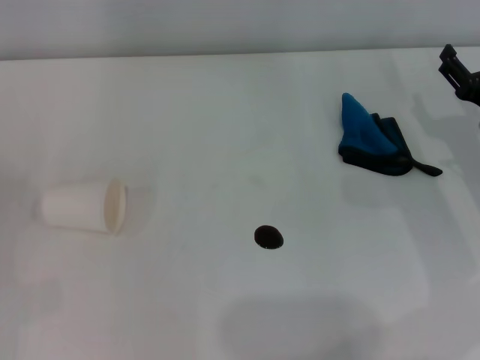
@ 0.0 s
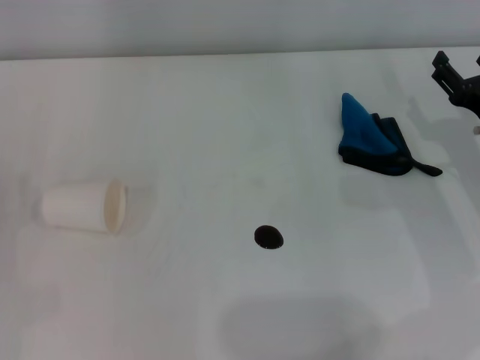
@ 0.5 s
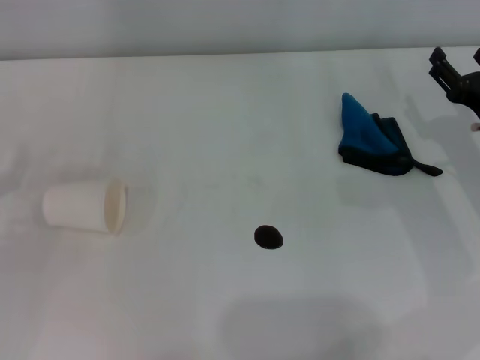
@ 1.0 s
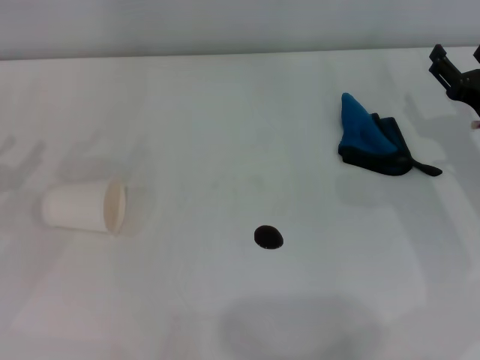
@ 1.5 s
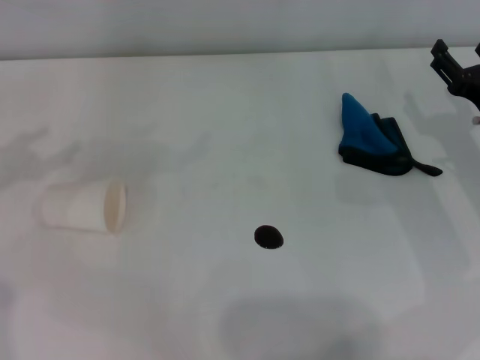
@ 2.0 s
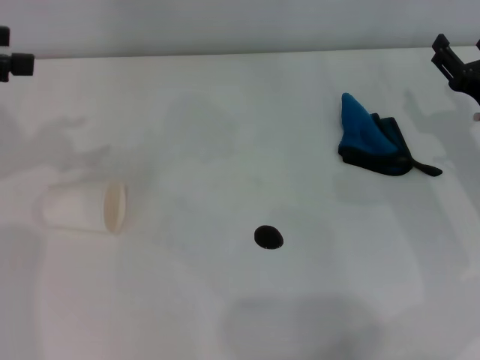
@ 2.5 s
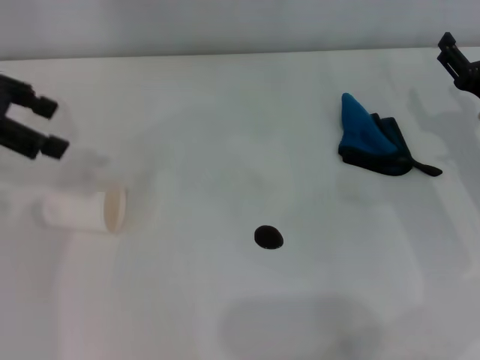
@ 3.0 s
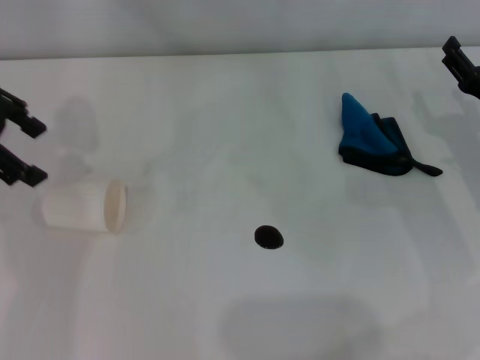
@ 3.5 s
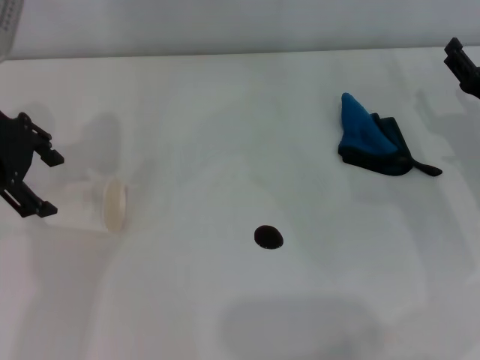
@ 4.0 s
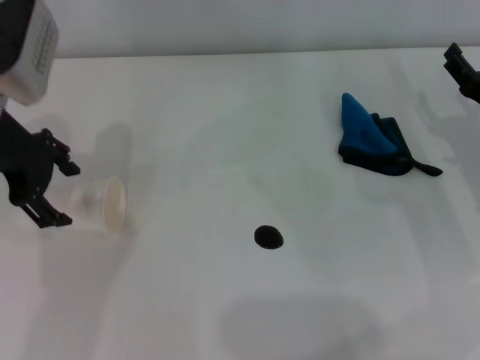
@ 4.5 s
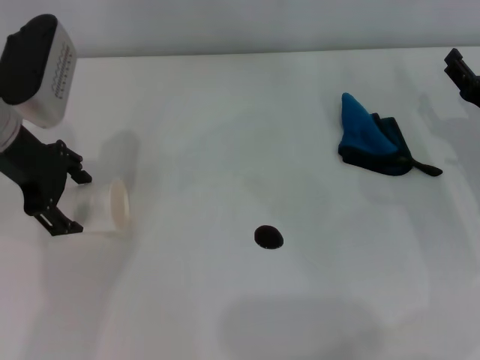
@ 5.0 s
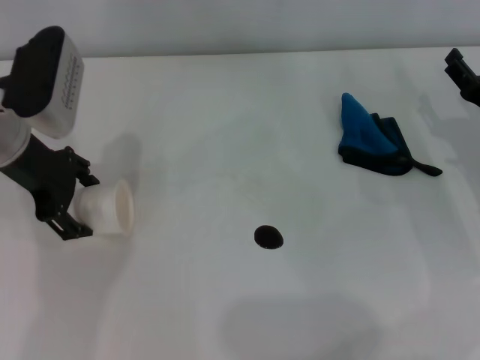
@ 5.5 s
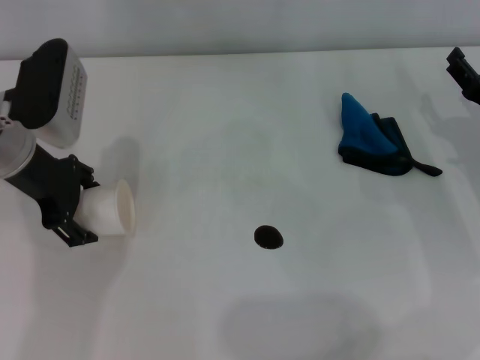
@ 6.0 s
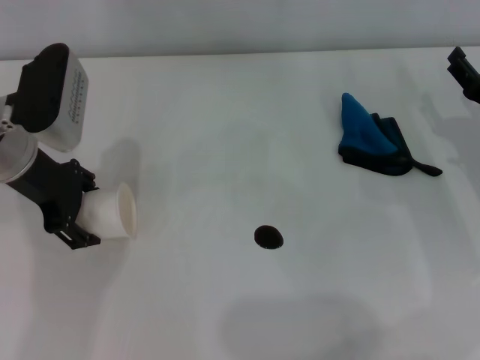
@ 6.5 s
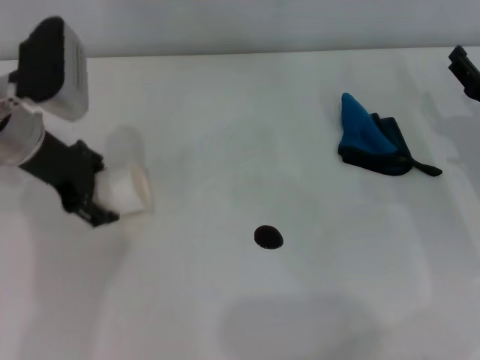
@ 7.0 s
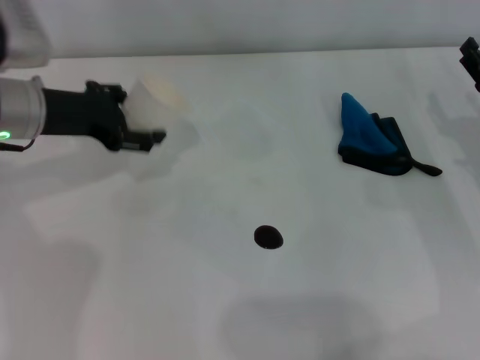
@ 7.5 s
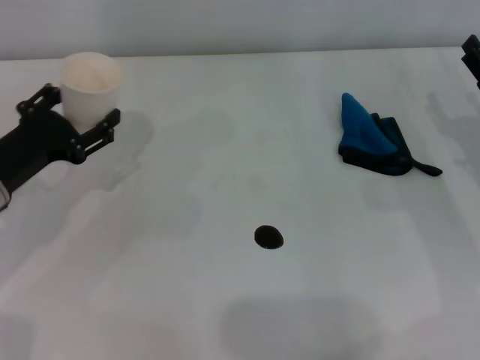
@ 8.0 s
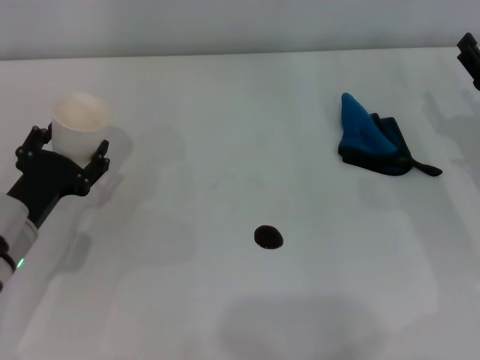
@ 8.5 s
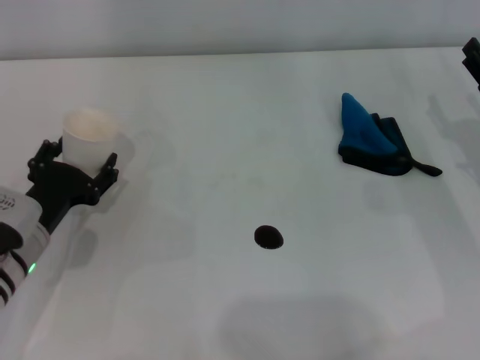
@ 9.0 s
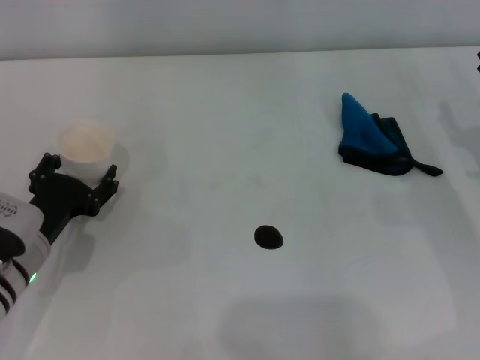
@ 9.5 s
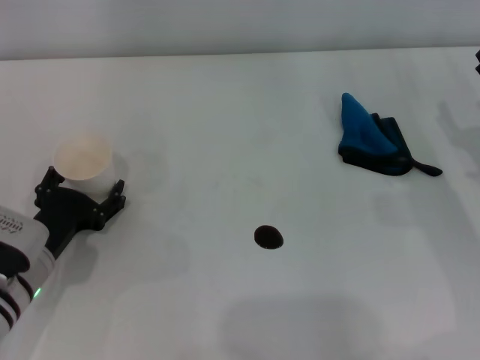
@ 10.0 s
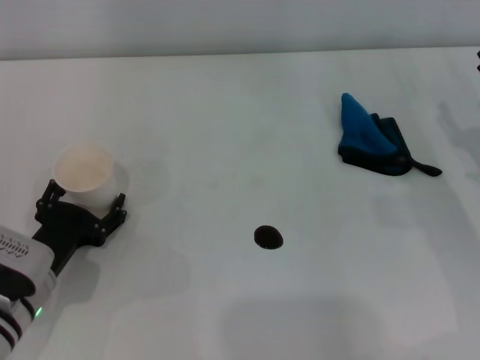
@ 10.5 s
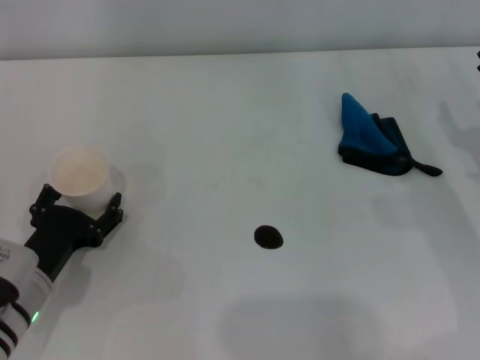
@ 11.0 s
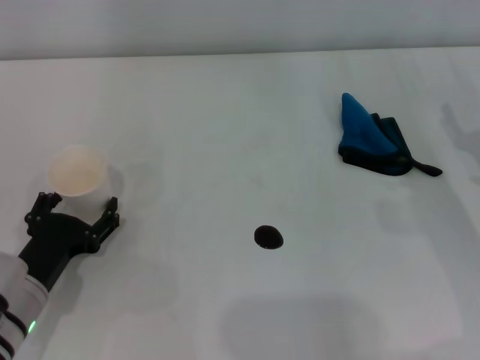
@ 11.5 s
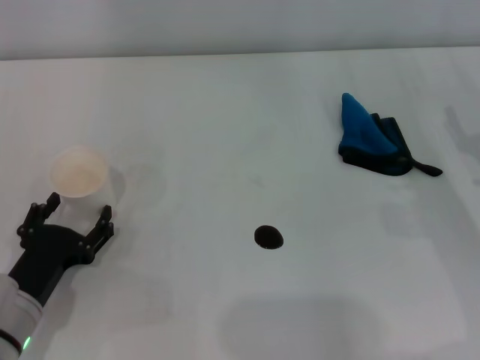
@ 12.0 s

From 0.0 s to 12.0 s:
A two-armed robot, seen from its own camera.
Step, from 0.0 s to 6.5 s: Grasp the paper cup with the left gripper.
Step, from 7.0 s to 10.5 s: Stand the paper cup upright with the left gripper.
From 2.0 s to 4.0 s: The left gripper is displaced to the right and forward by approximately 15 cm.
From 4.0 s to 6.0 s: The left gripper goes some 10 cm downward.
From 6.0 s to 8.0 s: The left gripper goes roughly 10 cm downward and backward, and closes its fingers.
From 8.0 s to 10.0 s: The left gripper heads downward and backward, covering some 10 cm, and opens.
From 10.0 s to 12.0 s: The left gripper goes some 5 cm backward.

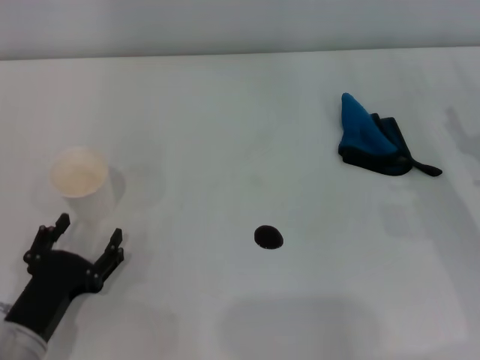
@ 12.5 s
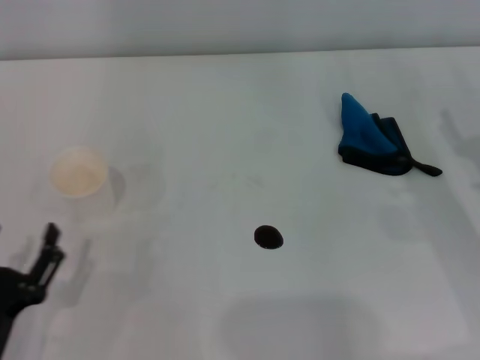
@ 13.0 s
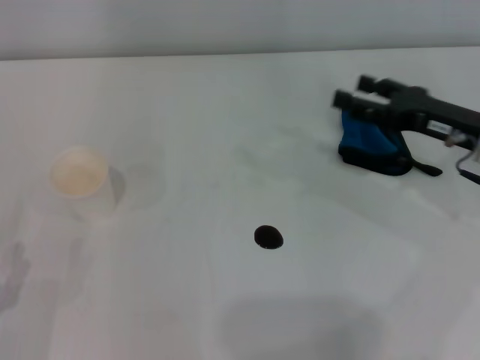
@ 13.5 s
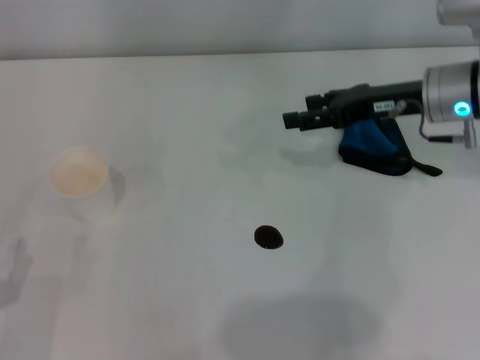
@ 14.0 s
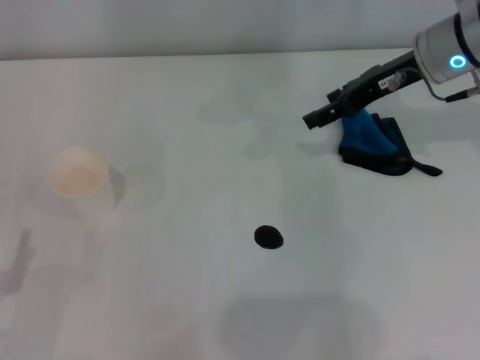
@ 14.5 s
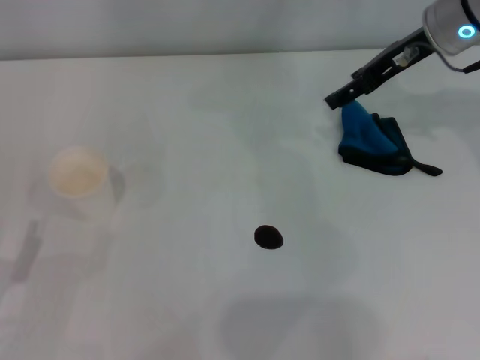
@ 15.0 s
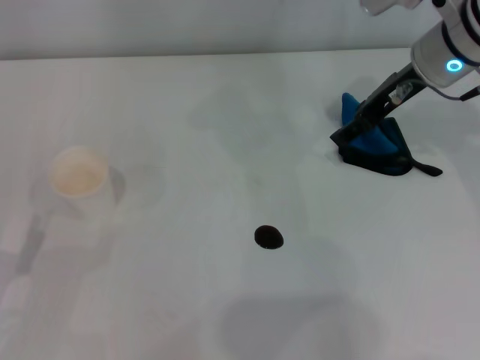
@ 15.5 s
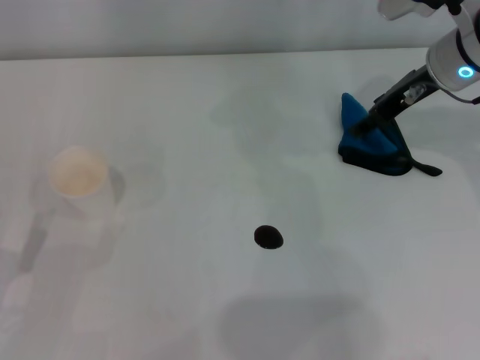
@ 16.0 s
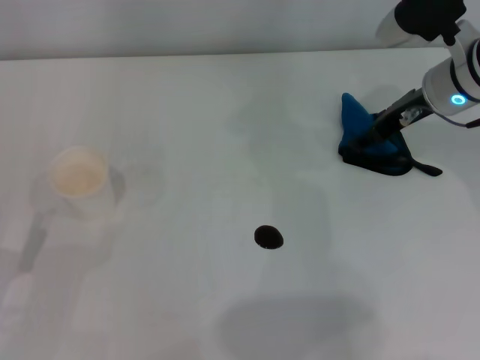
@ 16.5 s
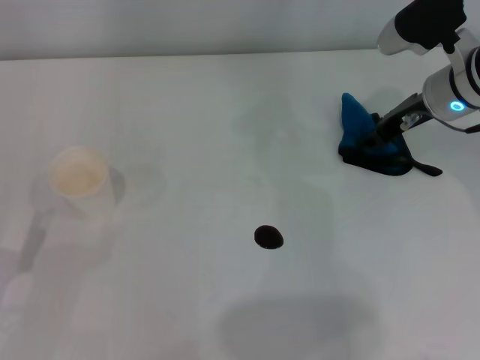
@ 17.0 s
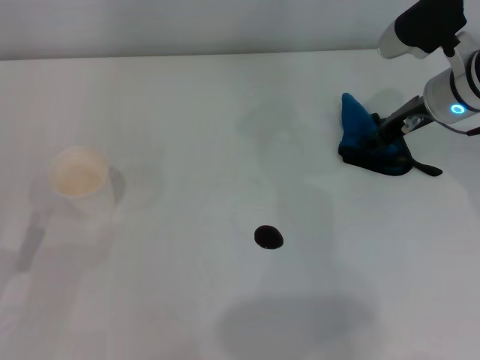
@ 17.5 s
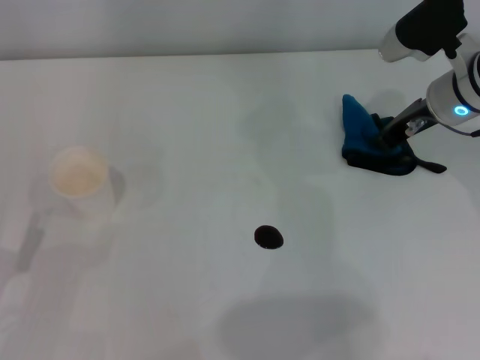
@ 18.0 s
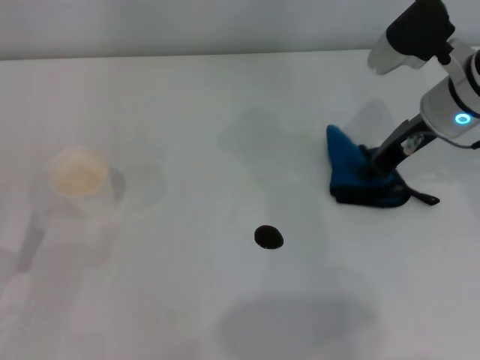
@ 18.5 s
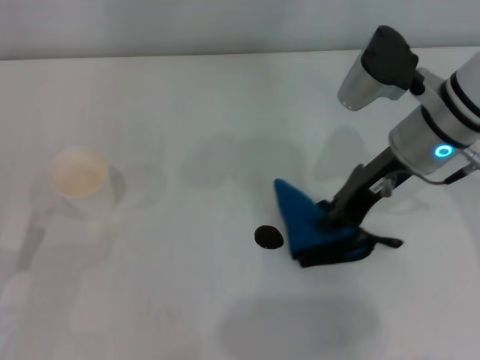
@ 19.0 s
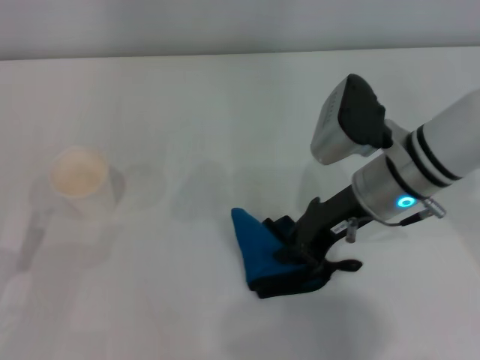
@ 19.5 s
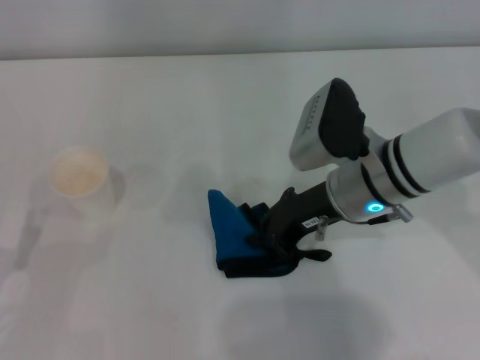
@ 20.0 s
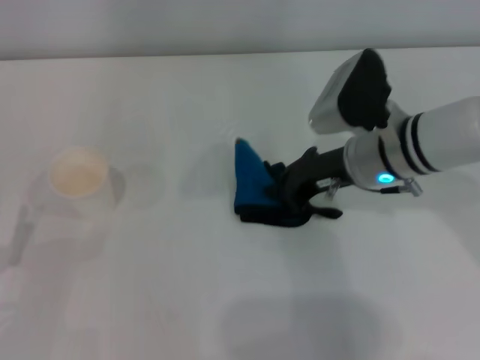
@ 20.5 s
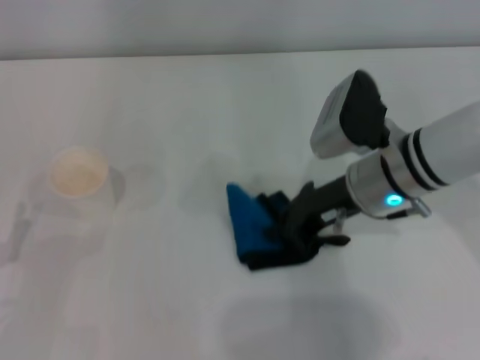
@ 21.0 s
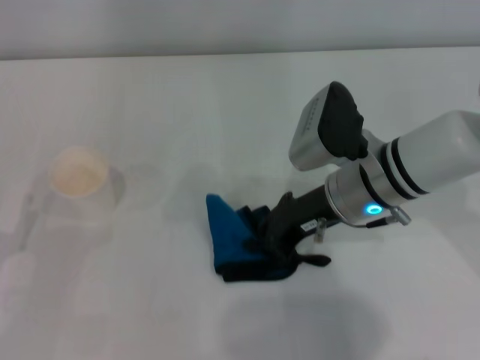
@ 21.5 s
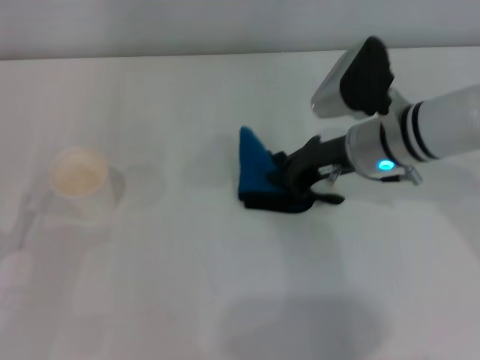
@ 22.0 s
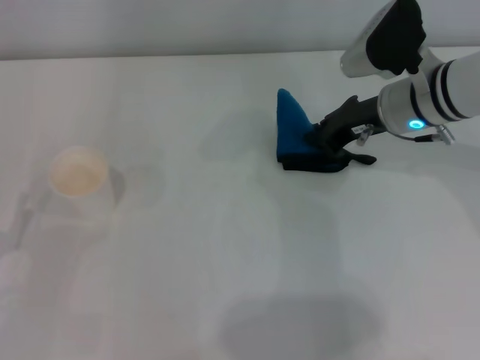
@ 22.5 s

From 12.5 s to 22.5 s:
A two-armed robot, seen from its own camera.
Step, from 12.5 s to 18.0 s: Grasp the rag with the right gripper.
Step, from 18.5 s to 22.0 s: Wipe the stains off the table with the right gripper.
From 12.5 s to 14.5 s: The left gripper travels to the left by approximately 5 cm. Meanwhile the right gripper heads forward, upward and to the left, covering some 25 cm.
From 14.5 s to 16.5 s: The grippers stay close to where they were, moving slightly.
From 16.5 s to 18.5 s: The right gripper closes up.
From 18.5 s to 20.5 s: The right gripper moves to the left, roughly 5 cm.
From 20.5 s to 22.5 s: The right gripper changes place by approximately 5 cm.

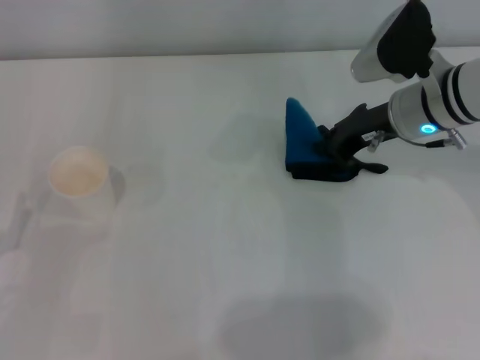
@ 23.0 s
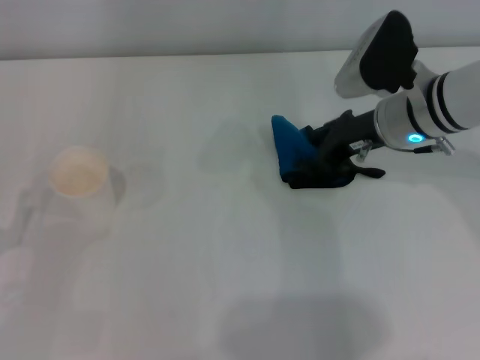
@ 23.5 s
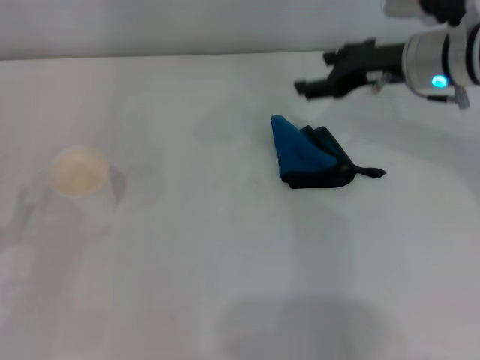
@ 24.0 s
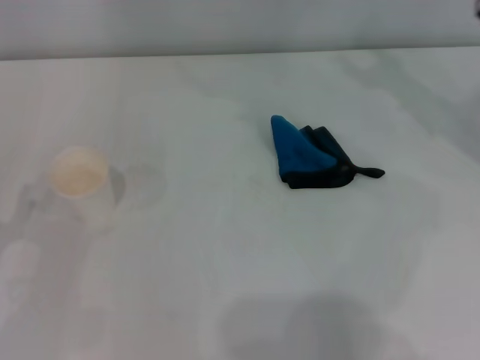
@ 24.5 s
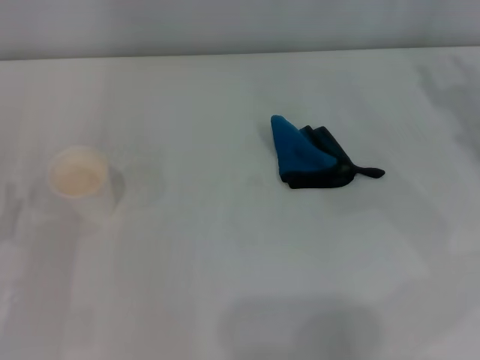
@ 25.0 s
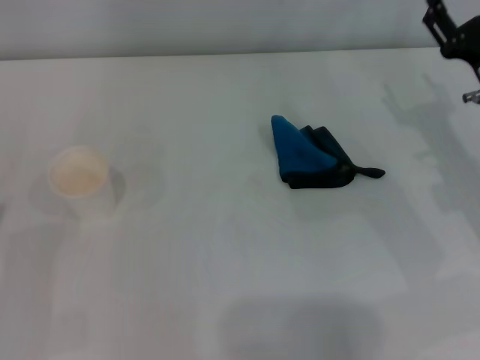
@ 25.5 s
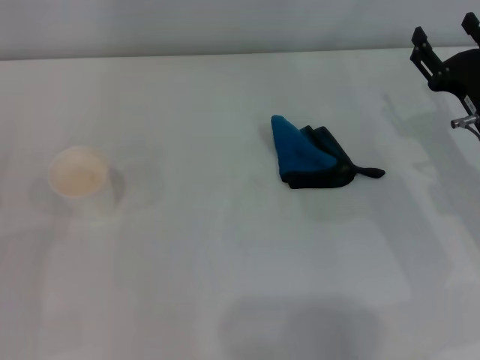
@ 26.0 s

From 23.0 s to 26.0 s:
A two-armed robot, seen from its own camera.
From 23.0 s to 24.5 s: The right gripper heads upward and to the right, covering some 10 cm, and opens.
From 24.5 s to 26.0 s: The right gripper goes some 15 cm downward and backward.
